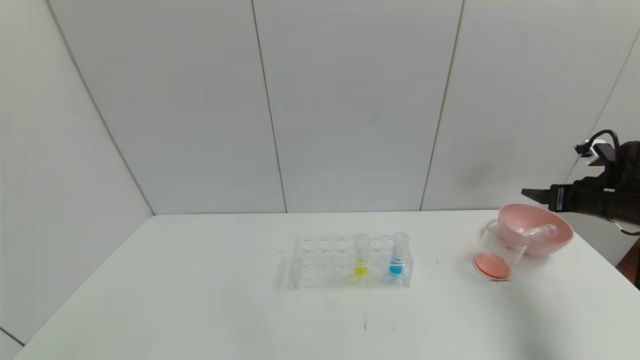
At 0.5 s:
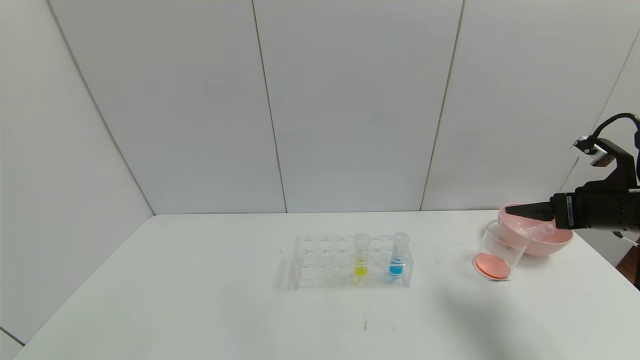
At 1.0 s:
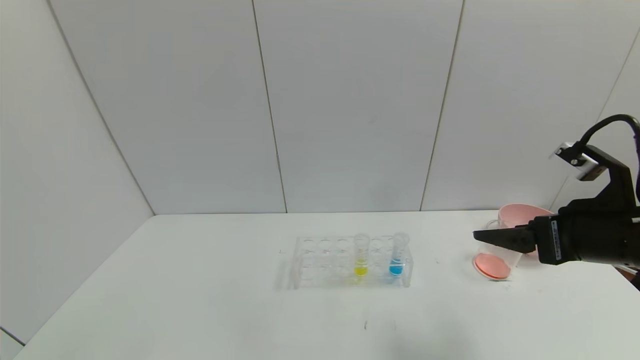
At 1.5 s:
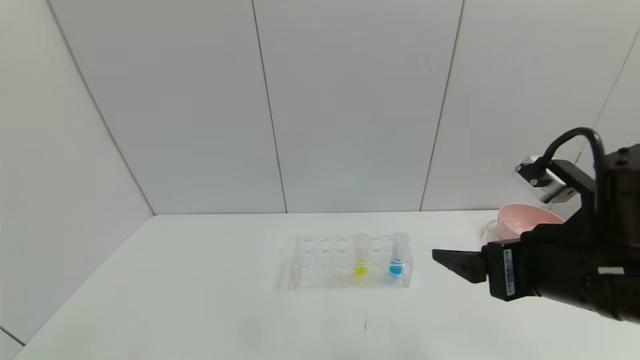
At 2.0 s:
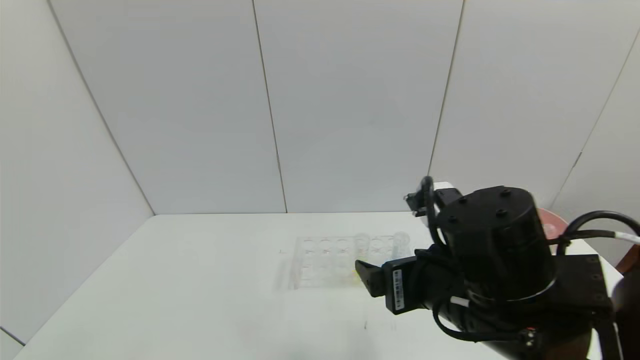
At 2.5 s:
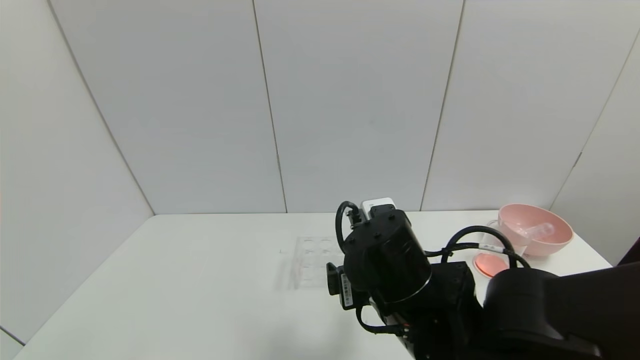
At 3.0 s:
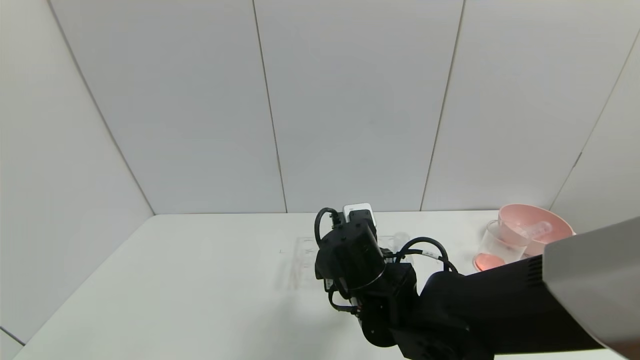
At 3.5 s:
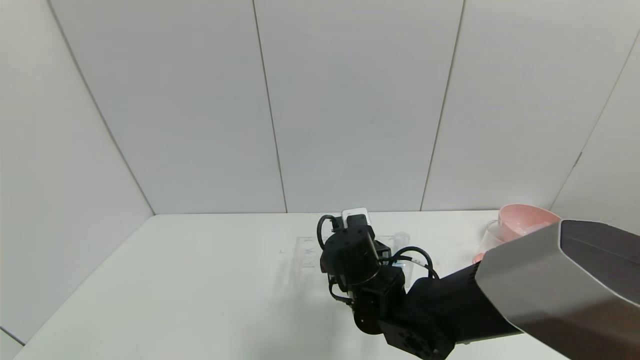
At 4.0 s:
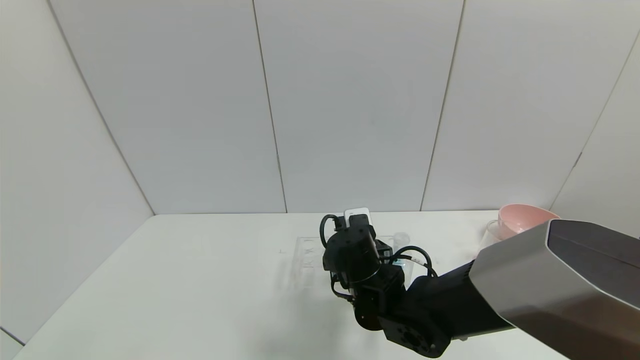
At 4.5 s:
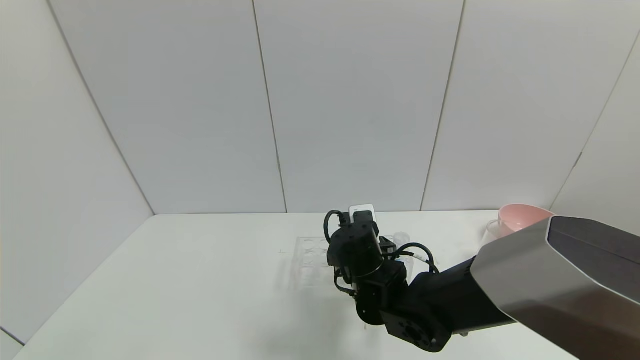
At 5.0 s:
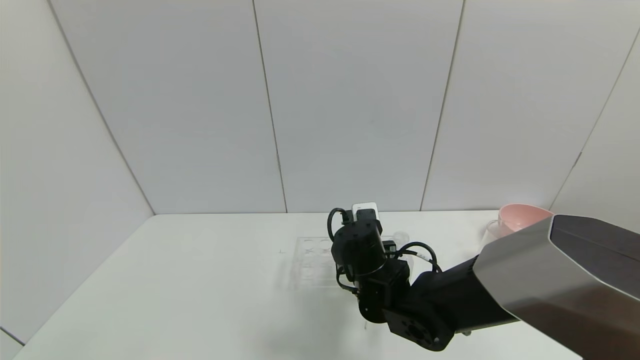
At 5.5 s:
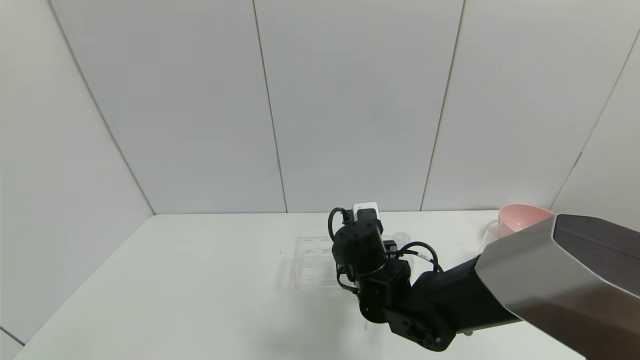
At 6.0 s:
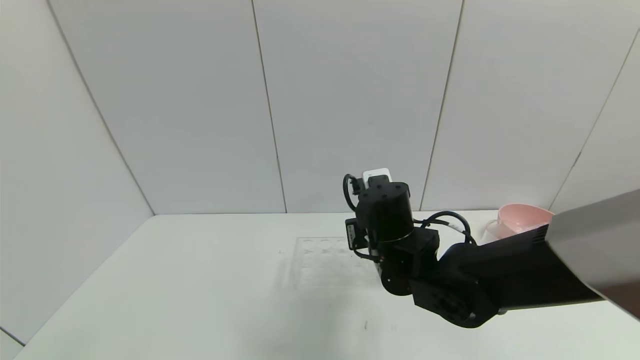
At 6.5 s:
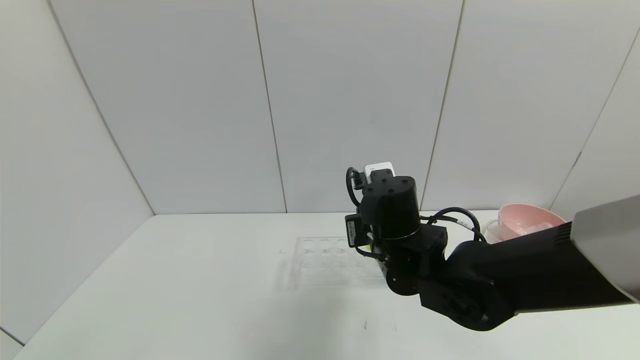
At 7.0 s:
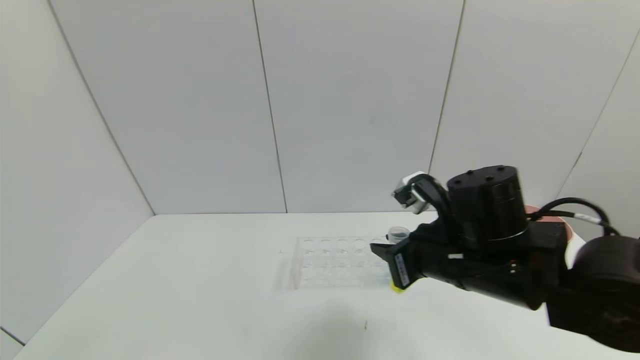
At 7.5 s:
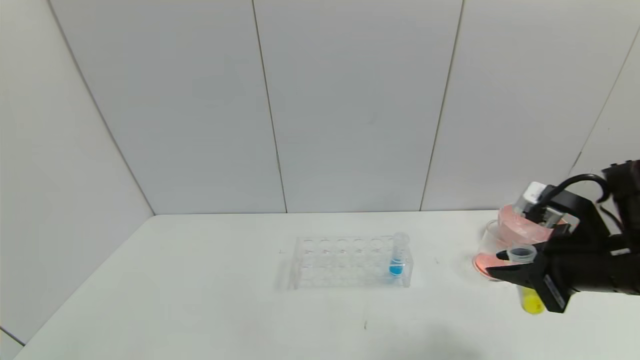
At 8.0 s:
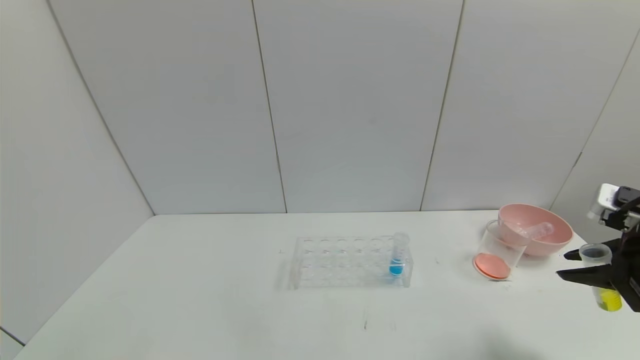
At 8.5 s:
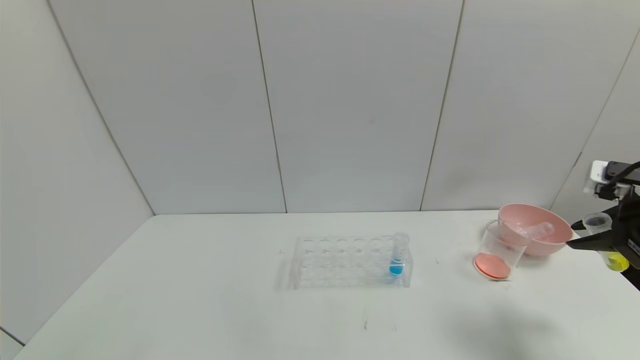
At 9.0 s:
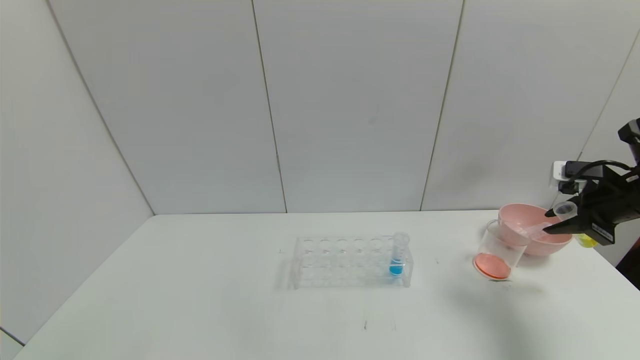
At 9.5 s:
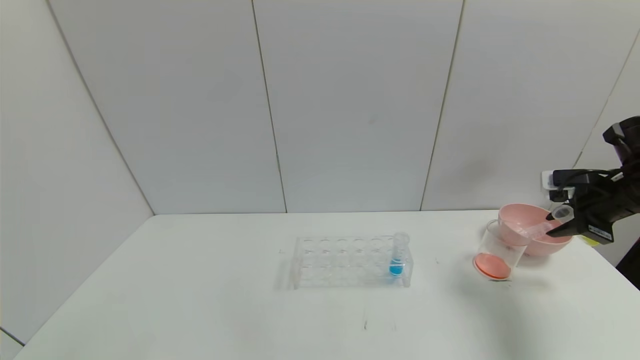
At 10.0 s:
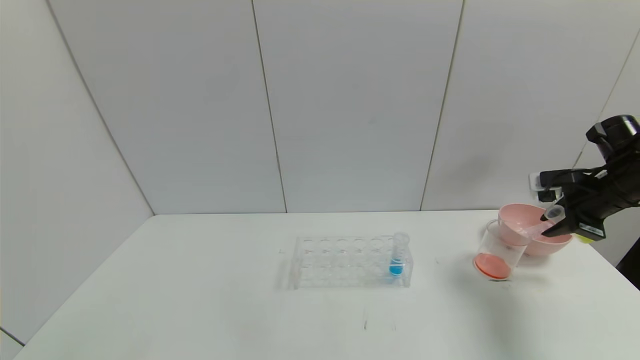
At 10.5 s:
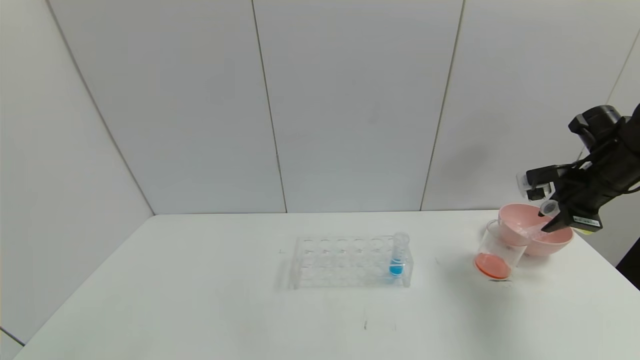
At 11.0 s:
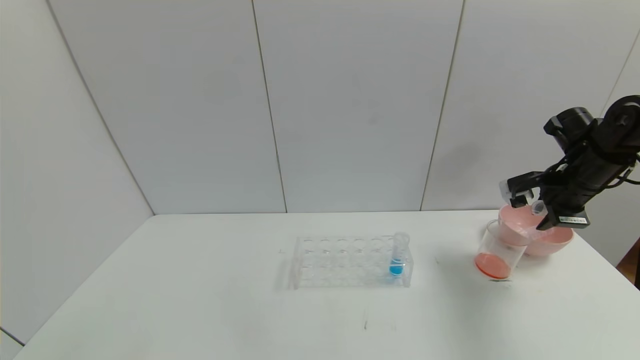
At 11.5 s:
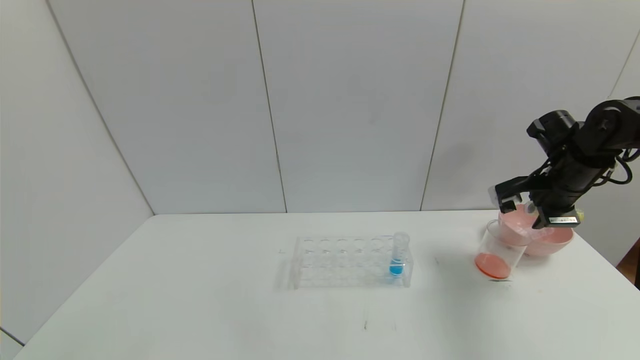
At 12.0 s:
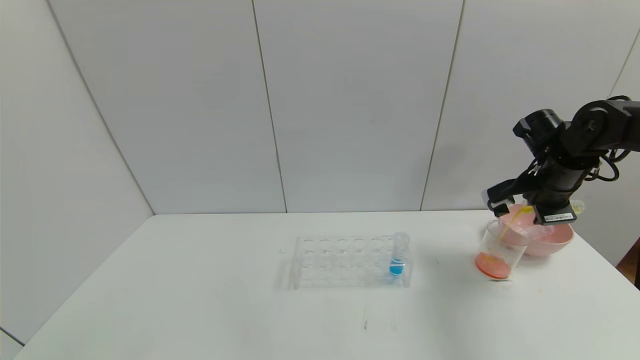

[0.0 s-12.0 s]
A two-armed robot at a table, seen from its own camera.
Task of the whole recording: pick up the test tube with yellow pigment and the test tube with red pigment by grippers and pour them into the beaker.
Step, 0.0 to 5.0 s: Grasp the yellow reagent with the right gripper.
0.0 to 2.0 s: The right gripper goes roughly 35 cm to the left and backward.
2.0 to 4.0 s: The right gripper goes roughly 20 cm downward, forward and to the left.
4.0 to 6.0 s: The right gripper heads upward, covering some 5 cm, and closes.
6.0 to 8.0 s: The right gripper heads to the right, covering roughly 30 cm.
8.0 to 10.0 s: The right gripper heads forward, covering roughly 15 cm.
10.0 to 12.0 s: The right gripper is displaced to the left by some 5 cm.

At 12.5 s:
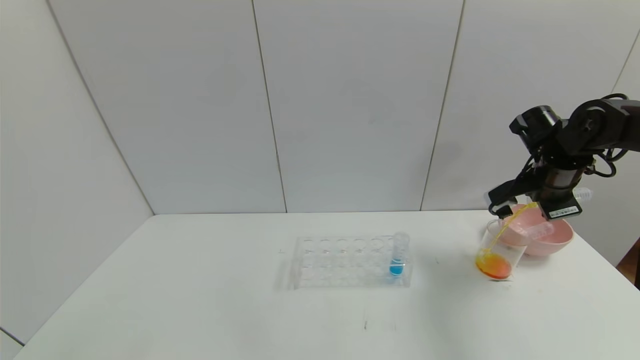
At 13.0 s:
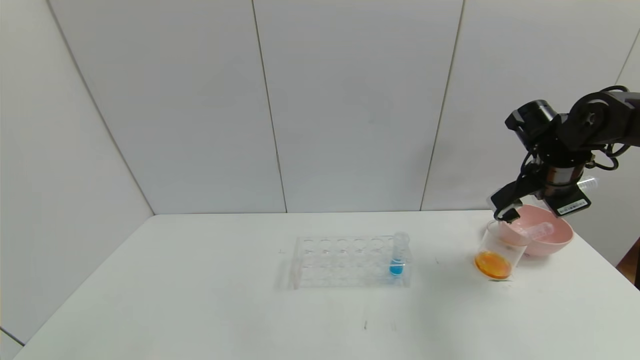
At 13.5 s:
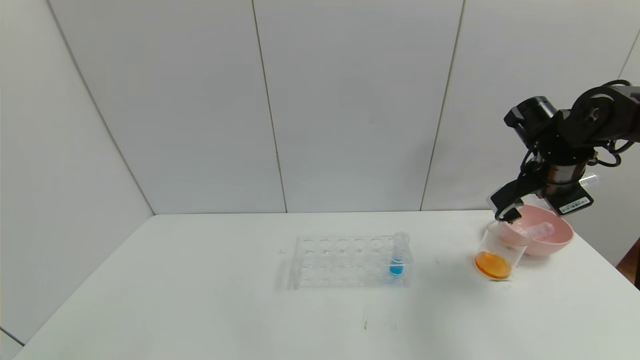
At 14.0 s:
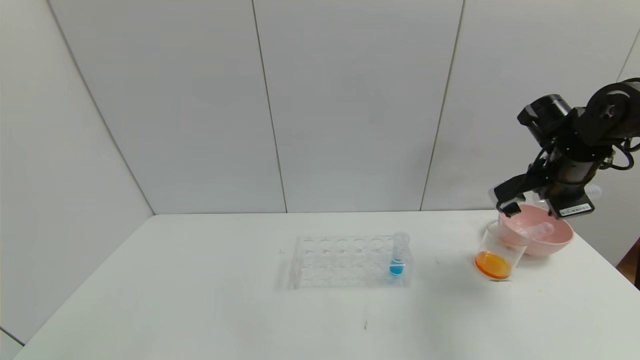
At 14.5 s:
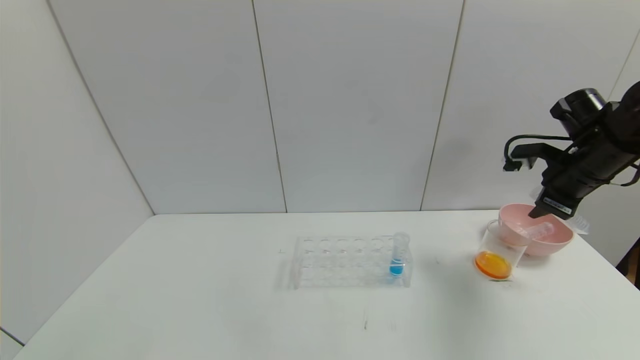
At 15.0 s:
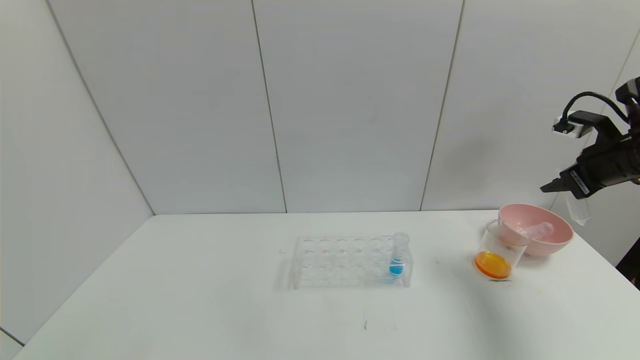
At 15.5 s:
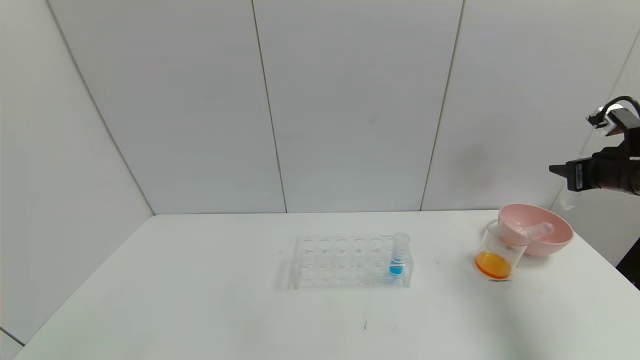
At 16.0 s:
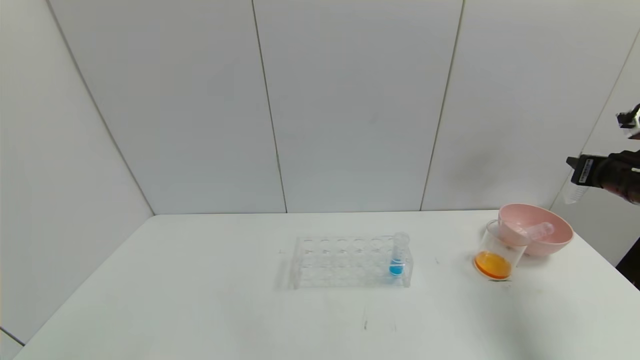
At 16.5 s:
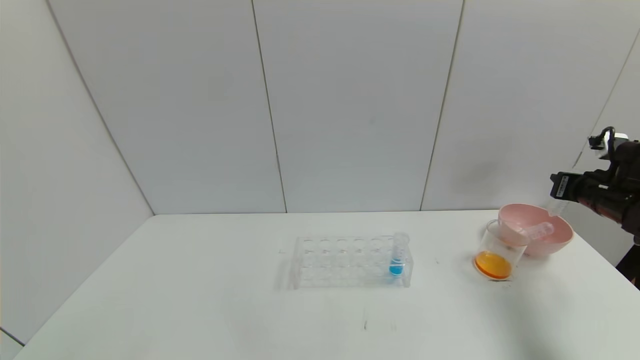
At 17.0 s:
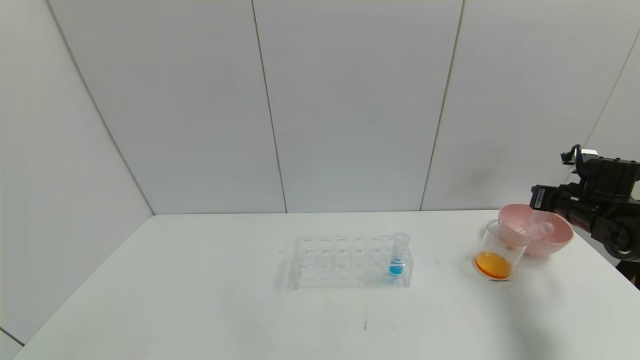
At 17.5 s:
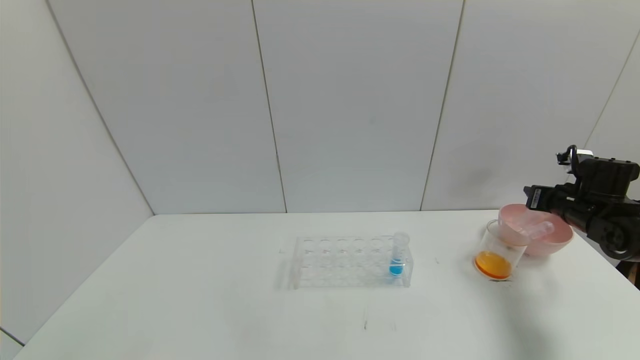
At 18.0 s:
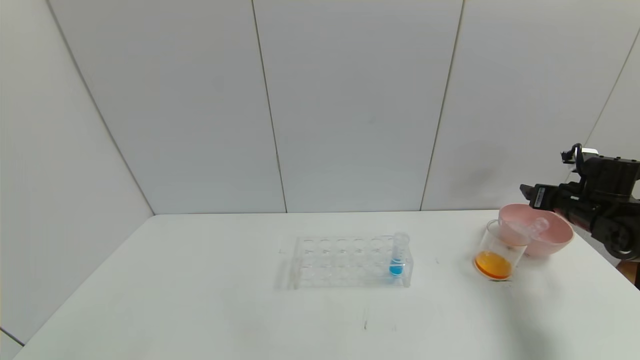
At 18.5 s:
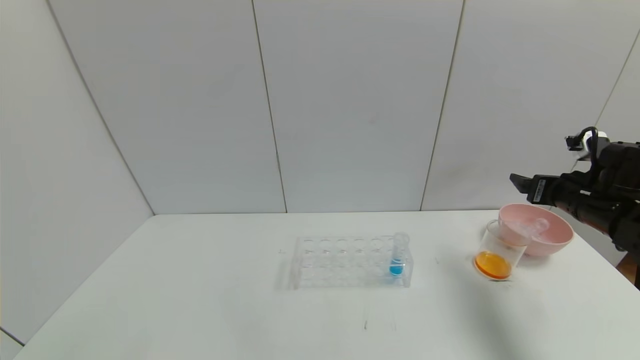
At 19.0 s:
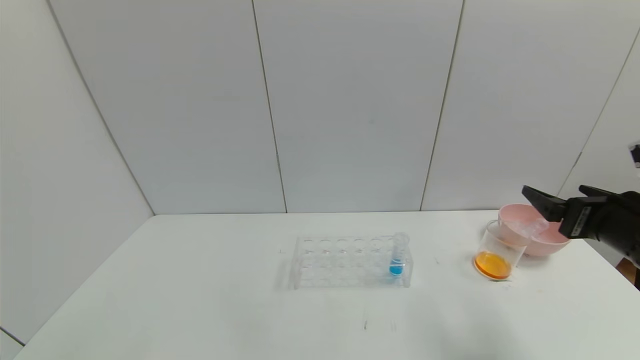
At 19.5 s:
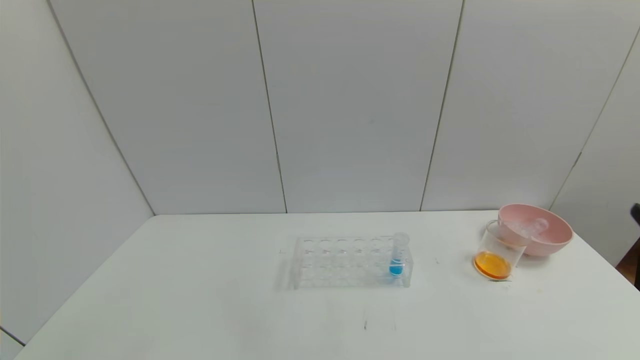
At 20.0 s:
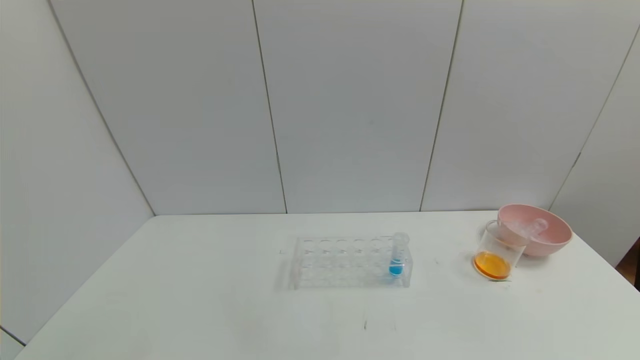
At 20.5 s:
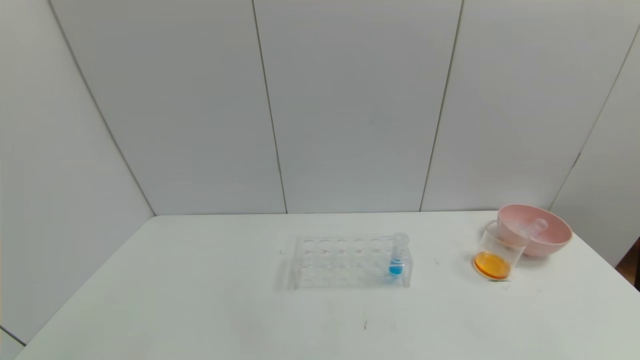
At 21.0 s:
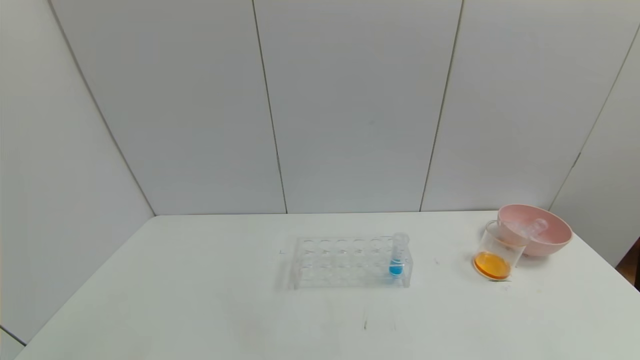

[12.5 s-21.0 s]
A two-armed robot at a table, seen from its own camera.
Task of the whole recording: pick up the test tube with yellow pigment and the test tube with red pigment by grippers and pour them into the beaker.
Step, 13.5 to 17.5 s: Place the test tube into the bowl with the right gripper.
12.5 to 14.5 s: The right gripper shifts by roughly 5 cm.
14.5 to 16.5 s: The right gripper travels downward and to the right by about 10 cm.
16.5 to 19.0 s: The right gripper shifts approximately 20 cm backward and to the left, and opens.
19.0 to 21.0 s: The right gripper travels backward and downward by approximately 30 cm.
